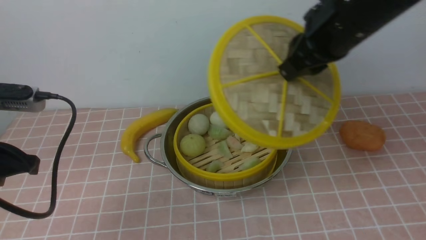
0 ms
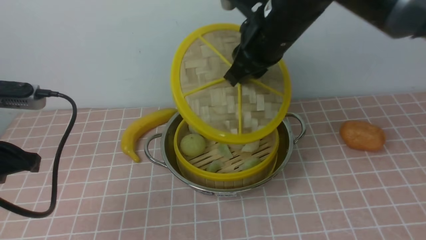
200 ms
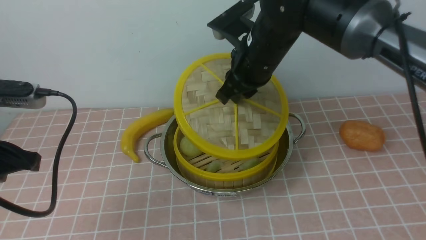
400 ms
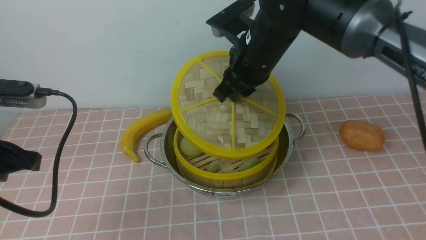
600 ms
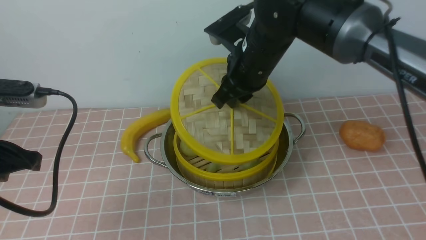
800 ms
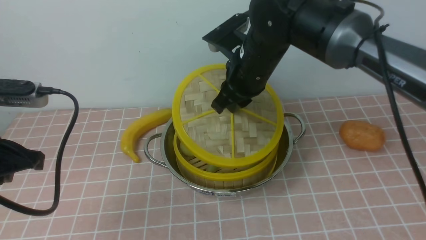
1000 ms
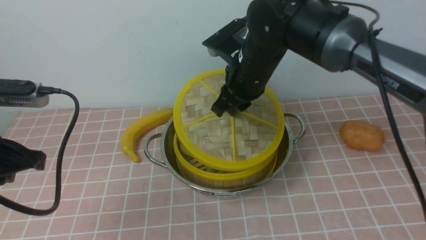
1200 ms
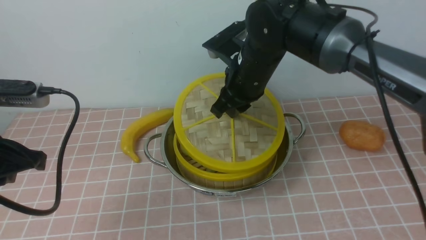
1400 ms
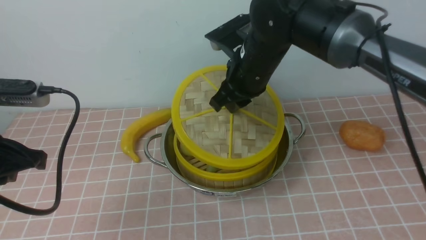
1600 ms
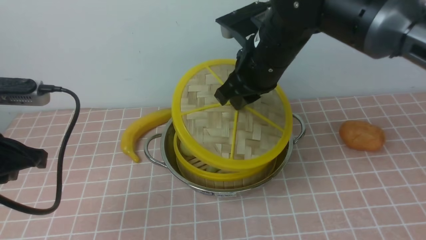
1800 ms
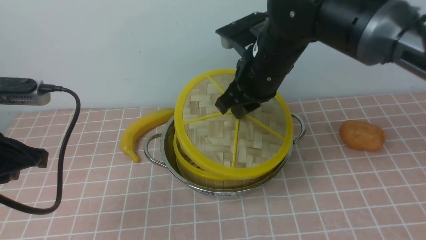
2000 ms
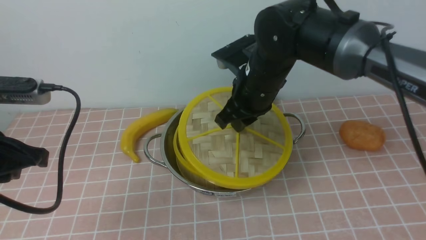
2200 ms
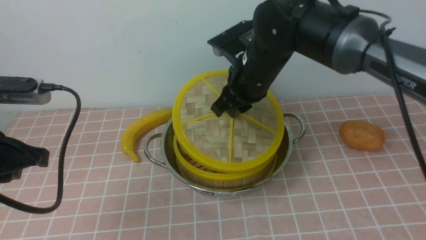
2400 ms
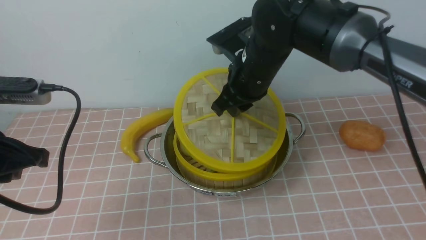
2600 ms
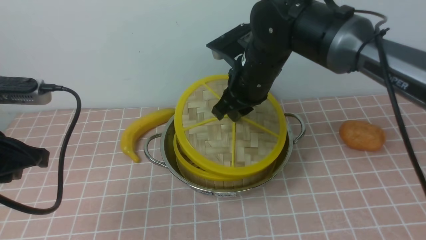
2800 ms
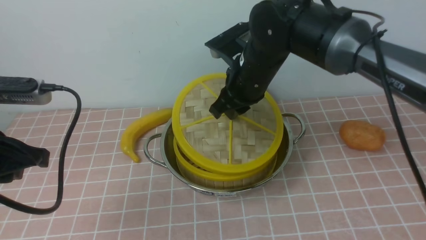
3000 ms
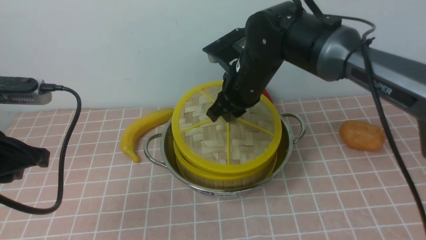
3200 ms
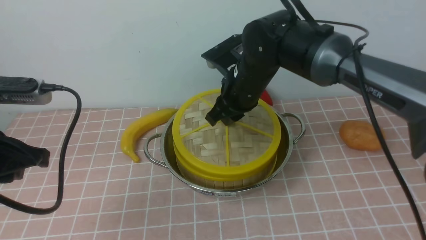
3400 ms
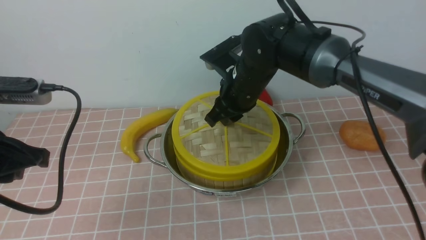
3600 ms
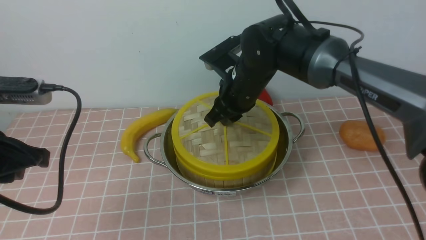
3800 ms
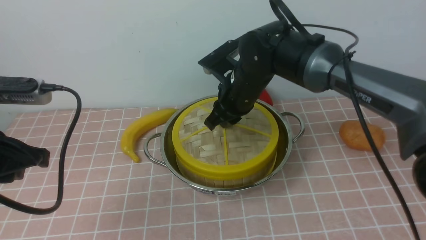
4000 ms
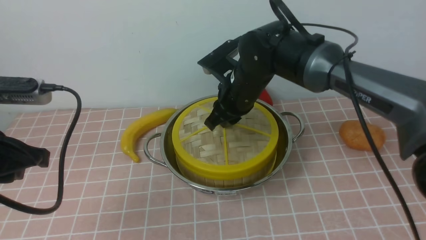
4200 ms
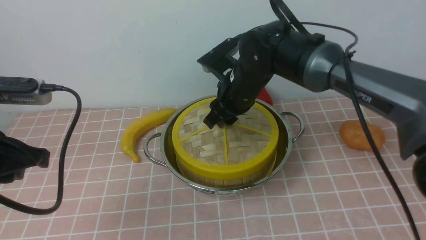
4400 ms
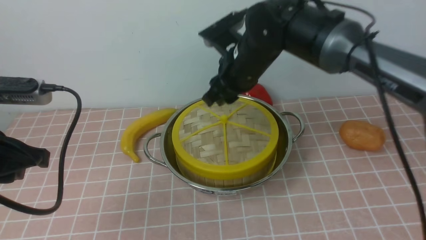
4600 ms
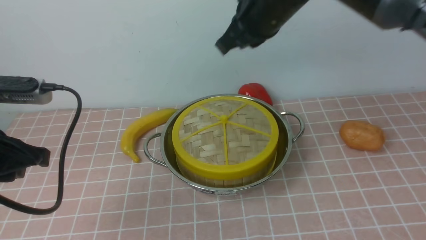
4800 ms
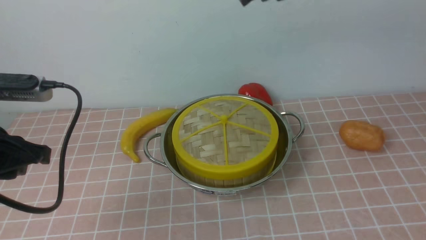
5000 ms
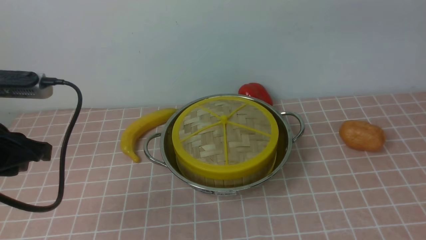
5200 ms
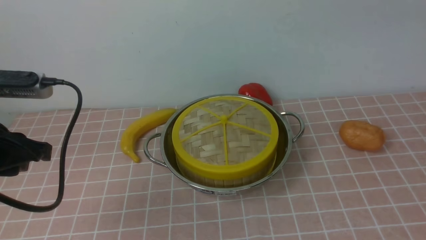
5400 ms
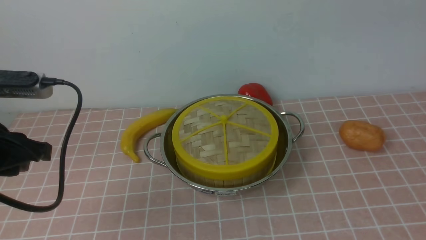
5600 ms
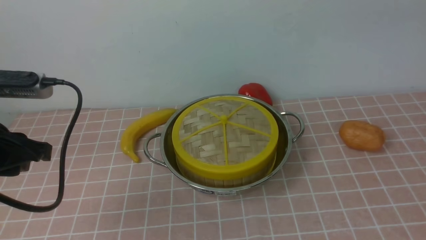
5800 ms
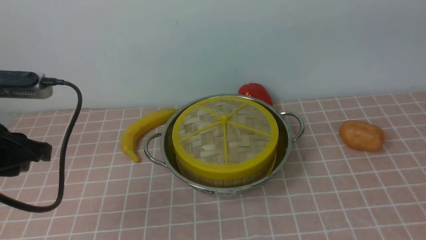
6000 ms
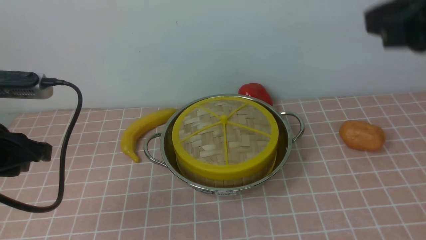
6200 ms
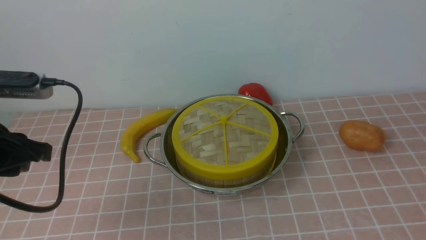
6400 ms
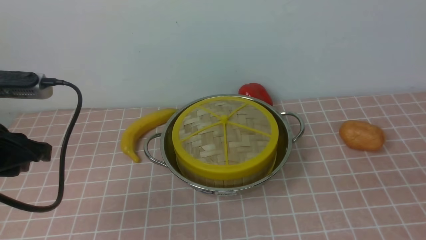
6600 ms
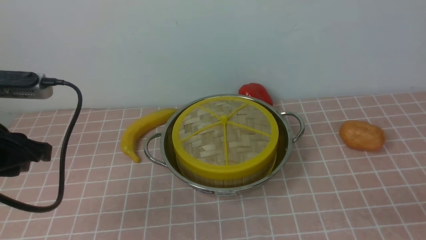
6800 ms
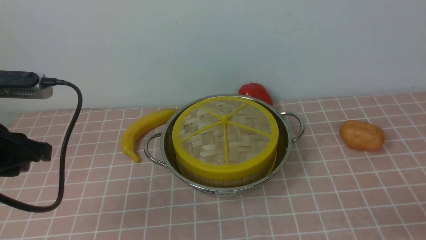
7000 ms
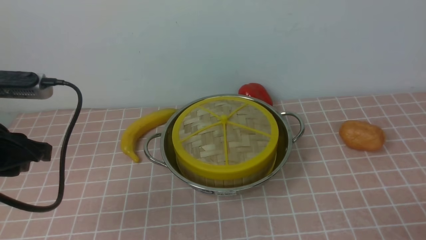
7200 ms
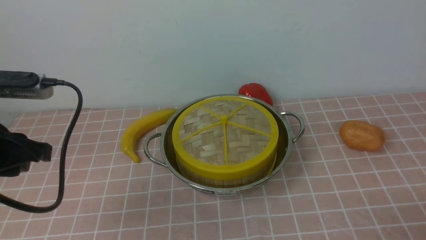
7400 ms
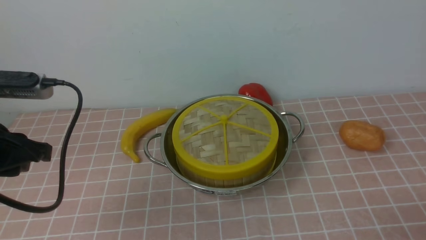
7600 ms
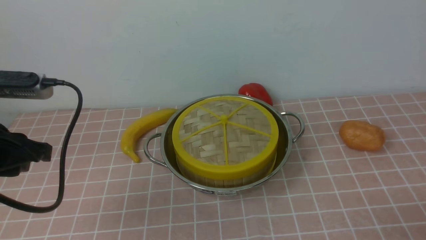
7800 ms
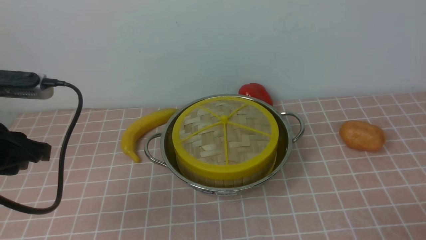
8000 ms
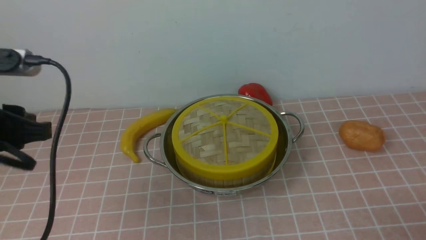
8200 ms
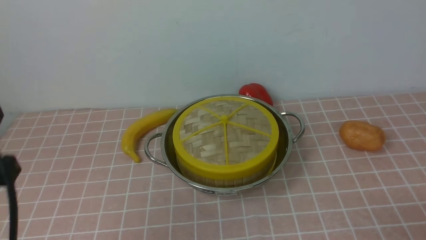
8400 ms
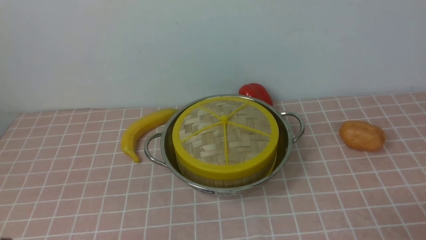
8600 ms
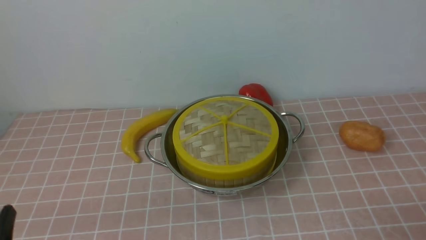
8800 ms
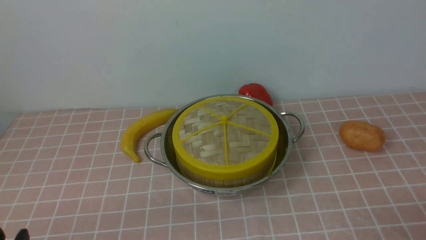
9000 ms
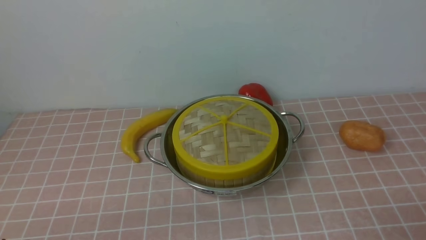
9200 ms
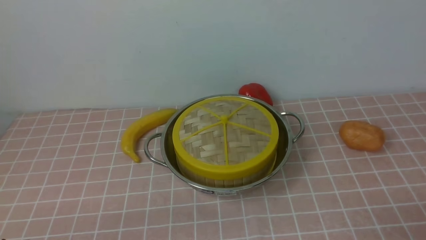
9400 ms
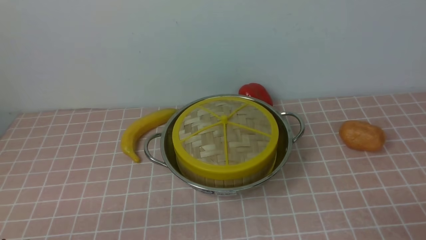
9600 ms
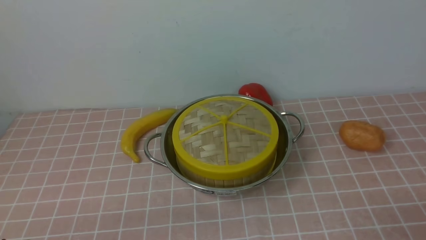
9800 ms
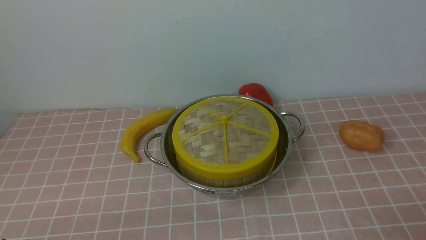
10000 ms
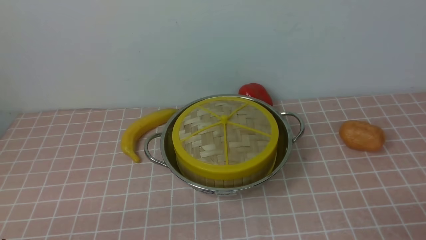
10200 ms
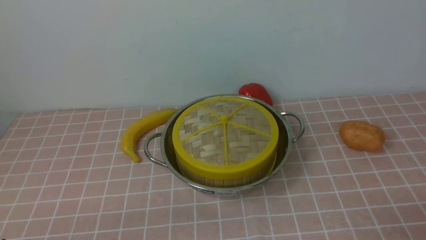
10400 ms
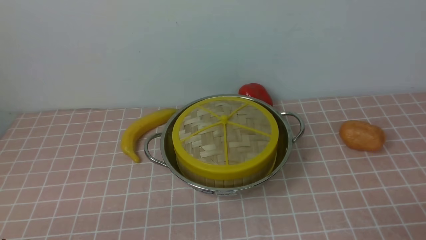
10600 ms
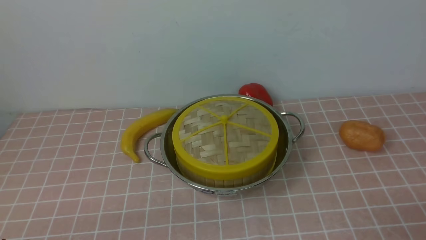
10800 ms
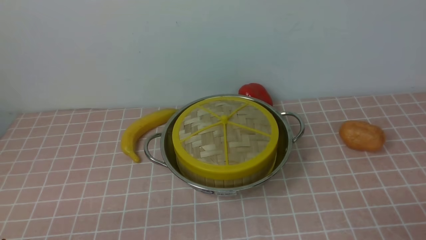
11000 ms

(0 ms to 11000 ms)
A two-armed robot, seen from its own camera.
Task of the whole recording: place the steamer in the pot on the pink tablecloth, and put the lid on the steamer.
Step, 0 ms - 4400 ms: use the right arm to place the steamer lid on the steamer.
0 ms - 1600 ms: The right gripper travels to the left and downward by roughly 10 cm.
1600 ms - 3200 ms: The grippers stay close to where they were, moving slightly.
3200 ms - 4800 ms: The right gripper travels upward by about 15 cm, and opens, then closes once more.
4800 ms - 6200 ms: The right gripper travels backward and to the right by about 25 cm.
6200 ms - 7800 ms: The right gripper travels downward and backward by about 30 cm, and opens up.
7800 ms - 9400 ms: The left gripper is displaced backward and downward by about 20 cm.
9400 ms - 11000 ms: Both grippers stay put.

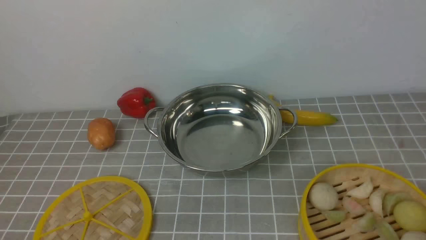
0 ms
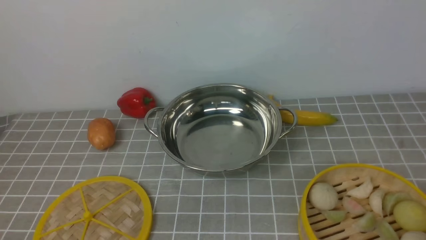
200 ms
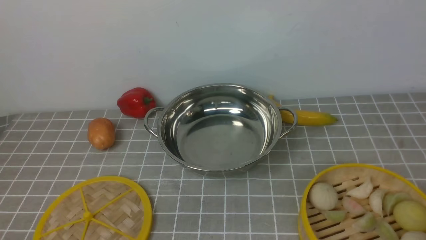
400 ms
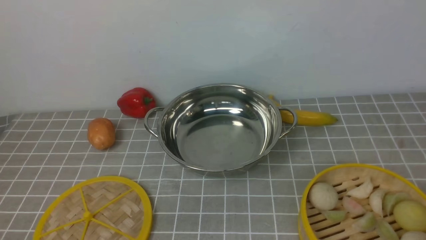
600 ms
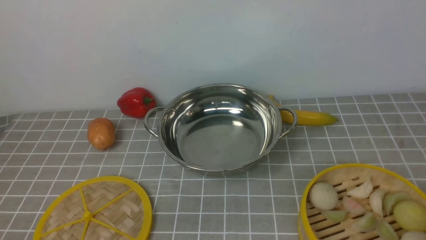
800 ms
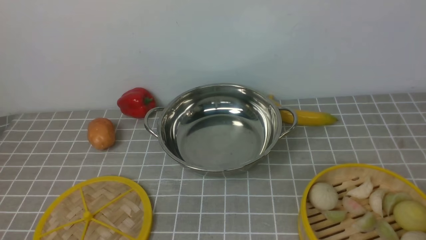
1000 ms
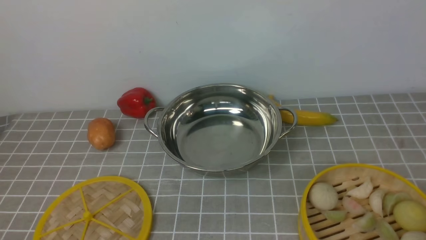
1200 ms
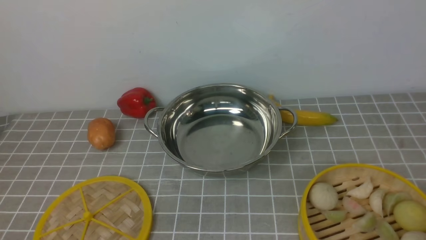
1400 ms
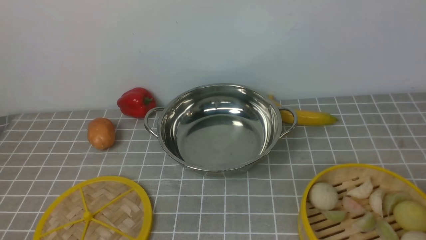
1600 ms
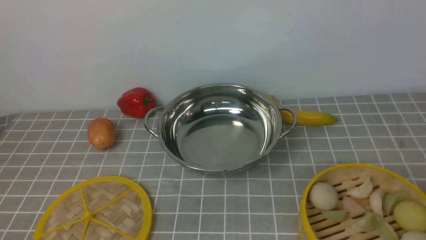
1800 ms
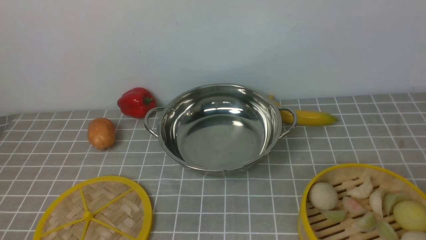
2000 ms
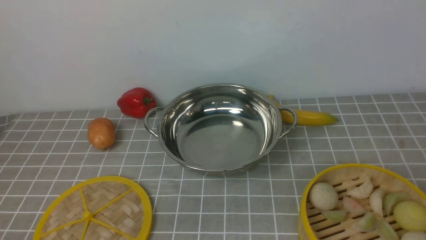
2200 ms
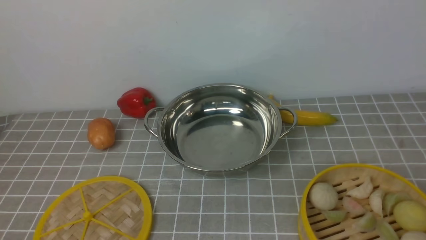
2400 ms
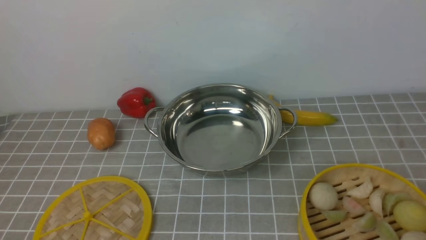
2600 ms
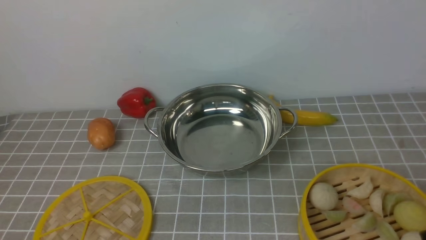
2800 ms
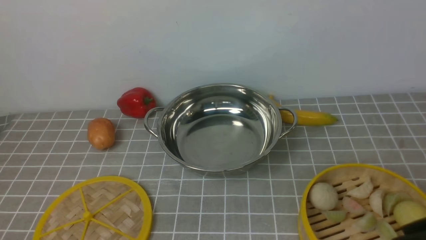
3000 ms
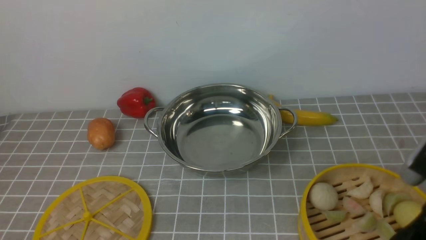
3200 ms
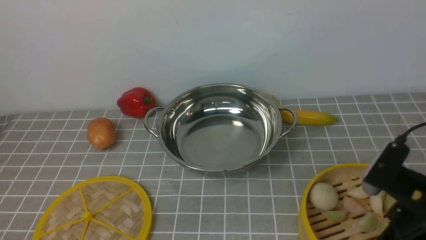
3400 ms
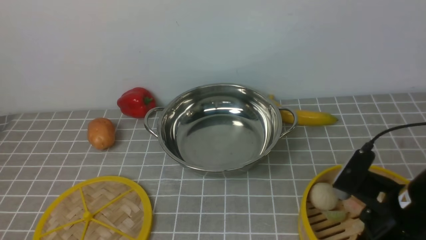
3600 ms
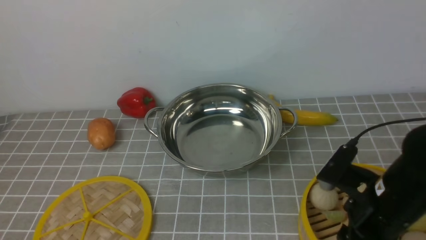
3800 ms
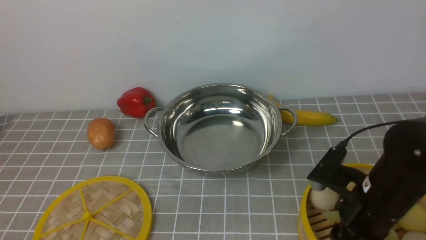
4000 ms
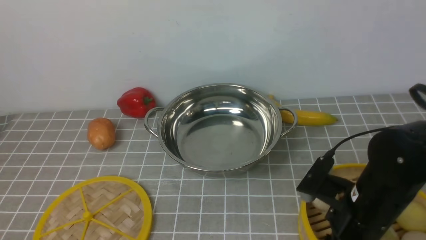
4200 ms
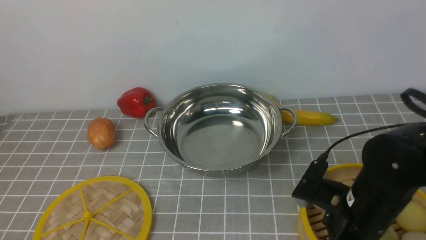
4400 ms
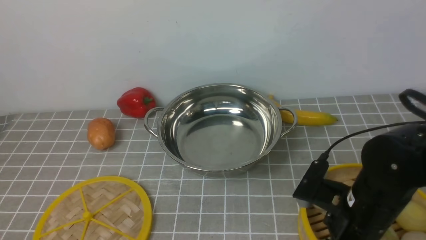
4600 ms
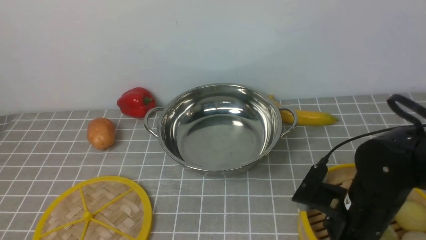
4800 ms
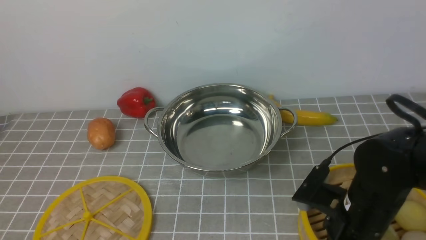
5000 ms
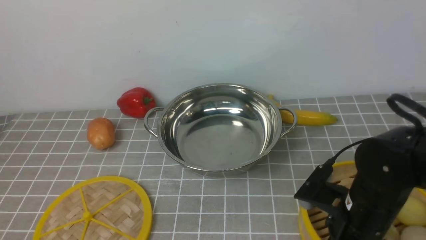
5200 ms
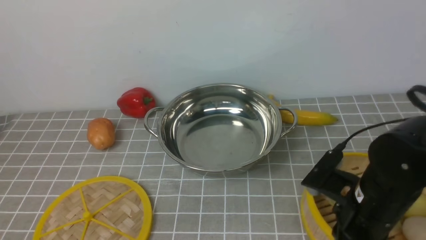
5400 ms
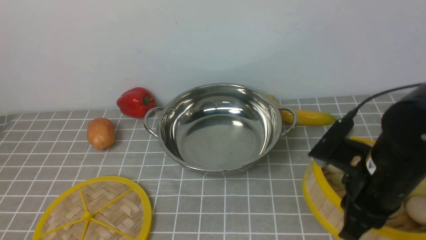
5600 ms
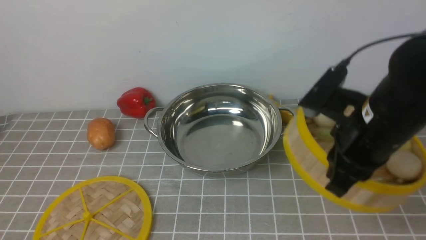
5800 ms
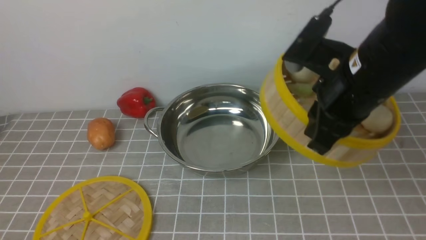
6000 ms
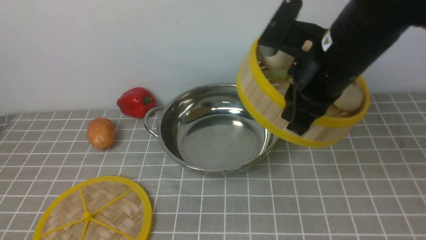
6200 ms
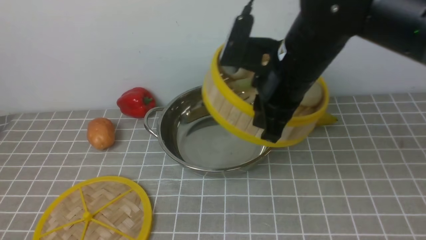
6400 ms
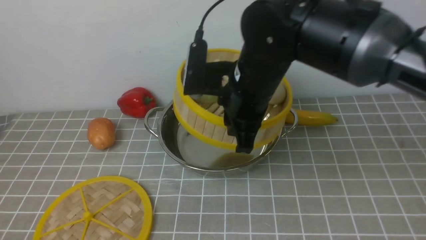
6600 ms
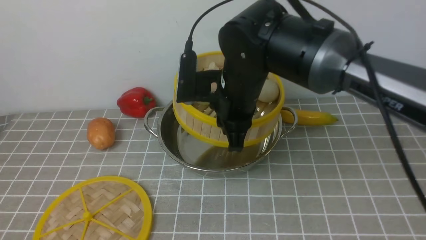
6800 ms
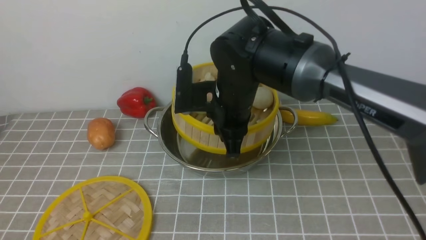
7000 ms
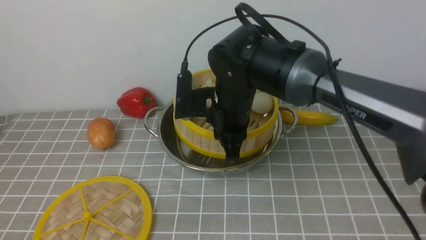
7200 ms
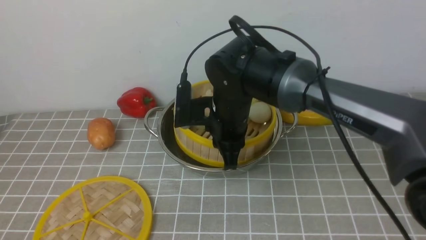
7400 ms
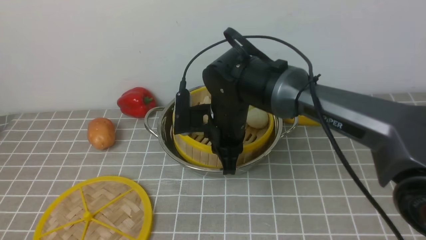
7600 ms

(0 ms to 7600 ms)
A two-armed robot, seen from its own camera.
Task of the whole recording: place the steamer in the pot on the grey tablecloth, and put the lid on the steamer.
Step, 0 ms - 5400 ms: use the right arm to lift the steamer closest to it.
3000 ms - 4600 ms: The right gripper heads downward, to the left and forward, covering about 15 cm.
4600 ms - 6000 ms: The right gripper moves upward and forward, roughly 15 cm, and closes.
6000 ms - 7600 ms: The right gripper heads to the left, downward and forward, covering roughly 20 cm.
